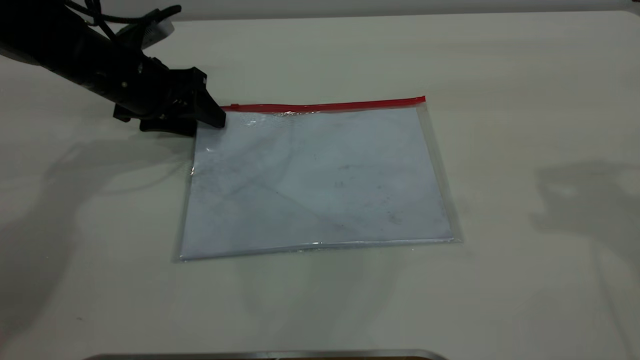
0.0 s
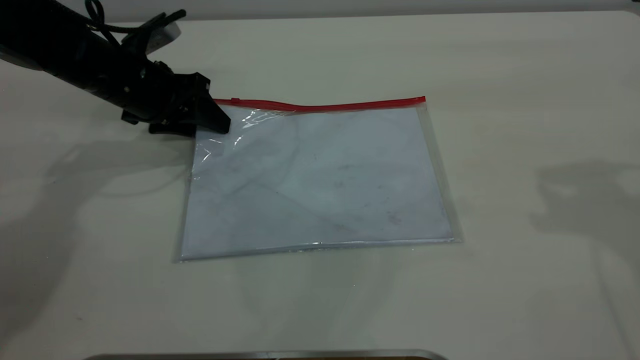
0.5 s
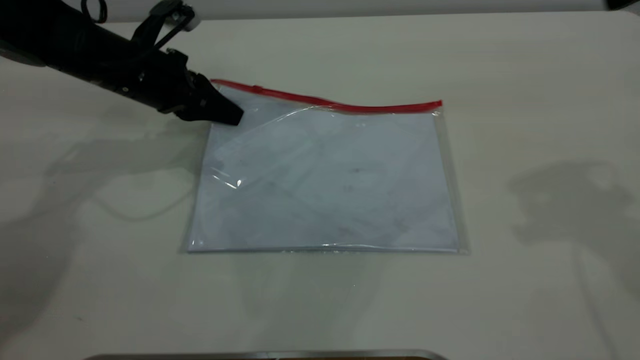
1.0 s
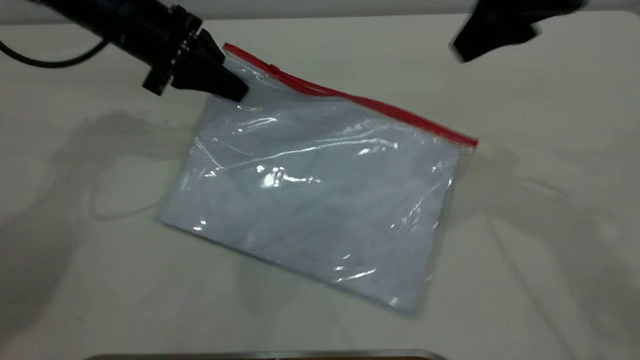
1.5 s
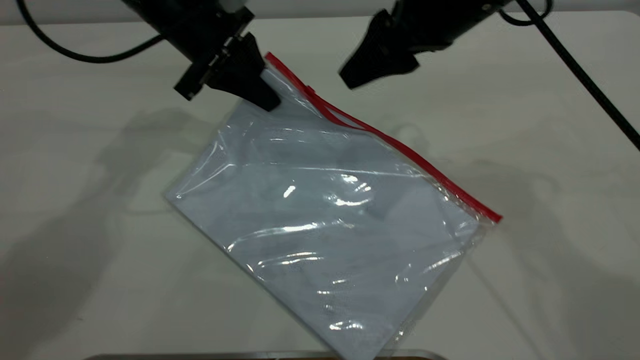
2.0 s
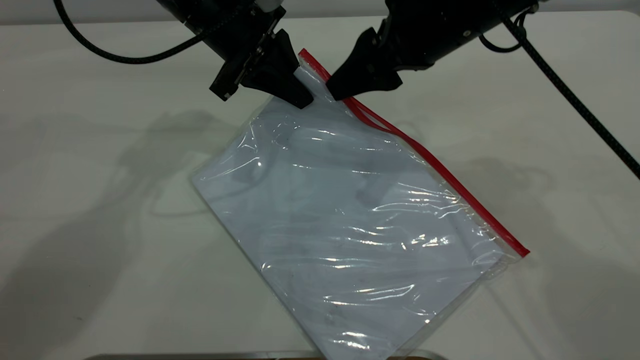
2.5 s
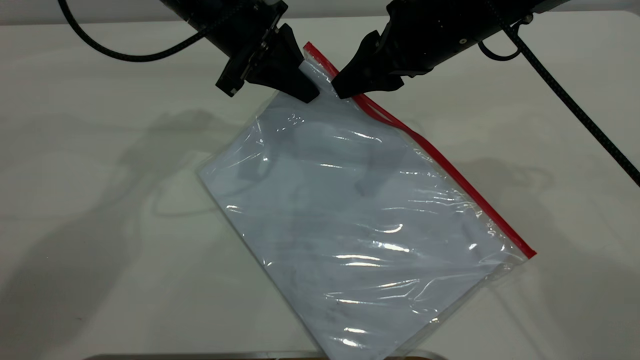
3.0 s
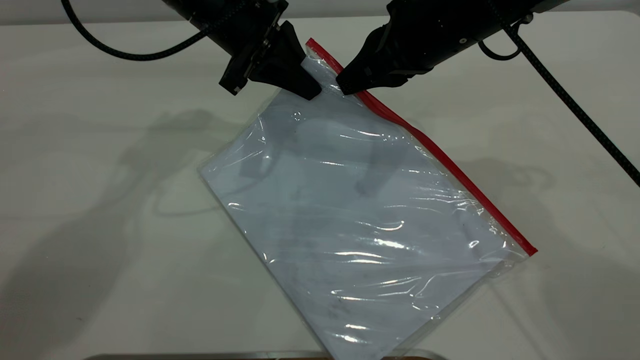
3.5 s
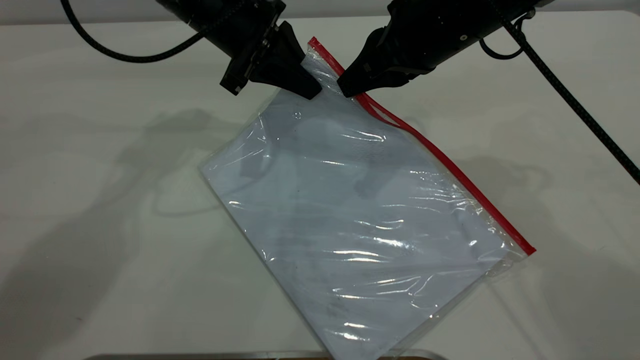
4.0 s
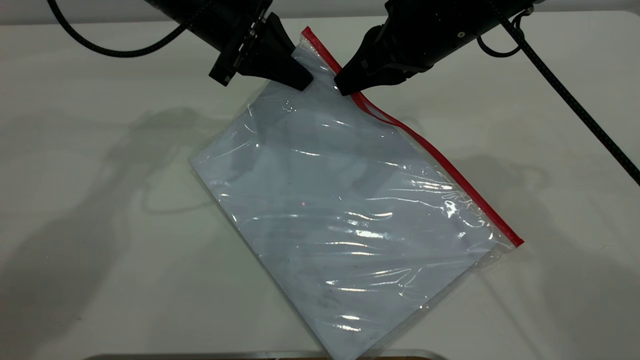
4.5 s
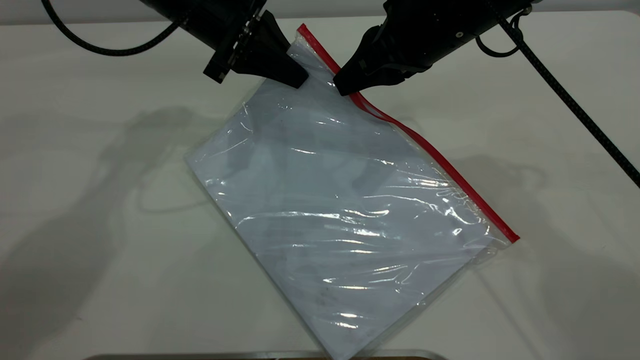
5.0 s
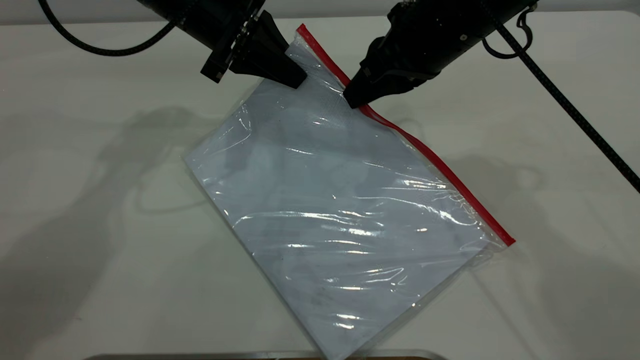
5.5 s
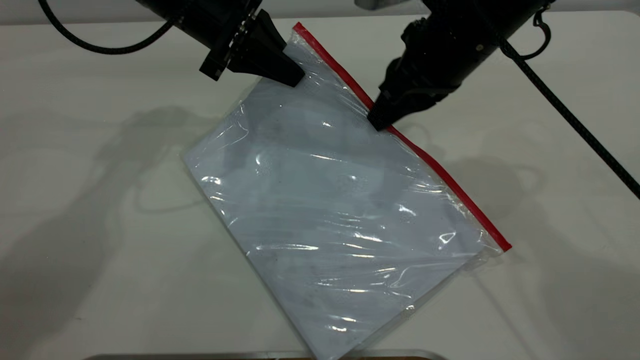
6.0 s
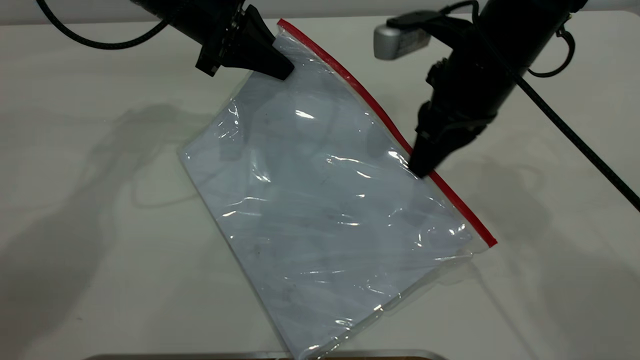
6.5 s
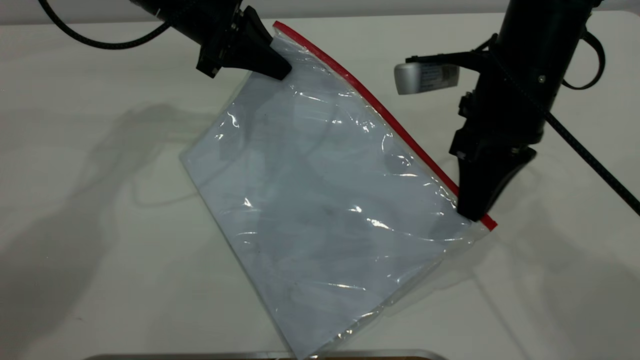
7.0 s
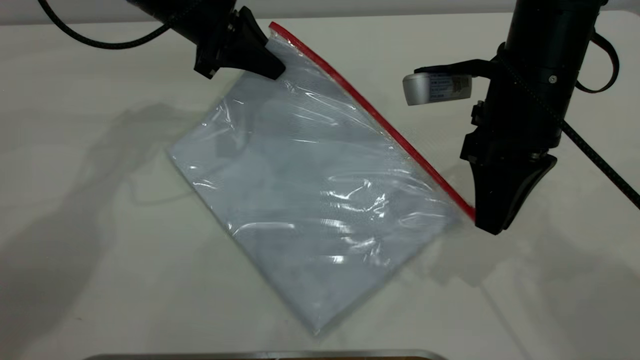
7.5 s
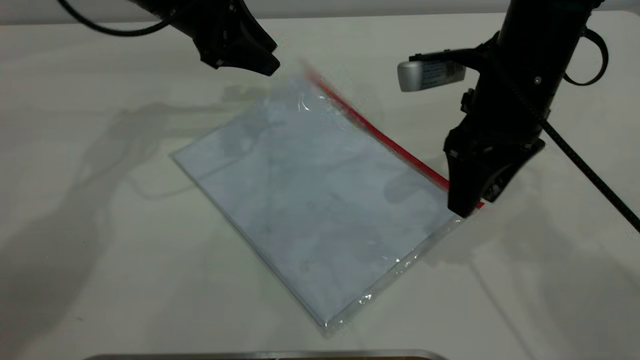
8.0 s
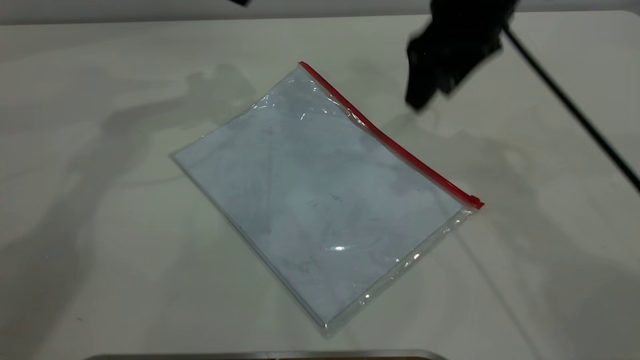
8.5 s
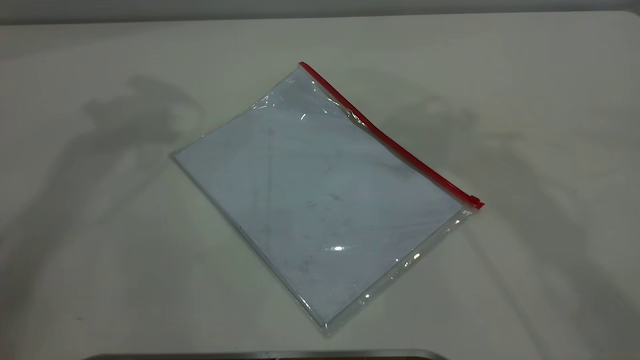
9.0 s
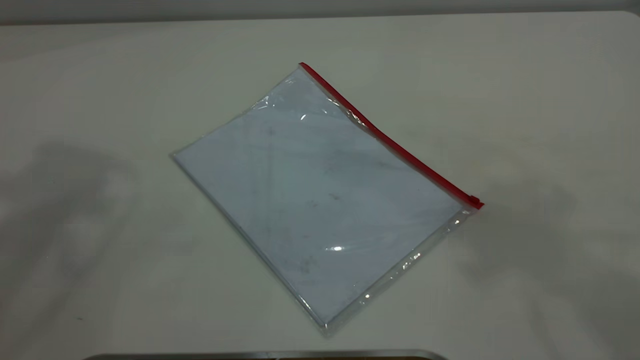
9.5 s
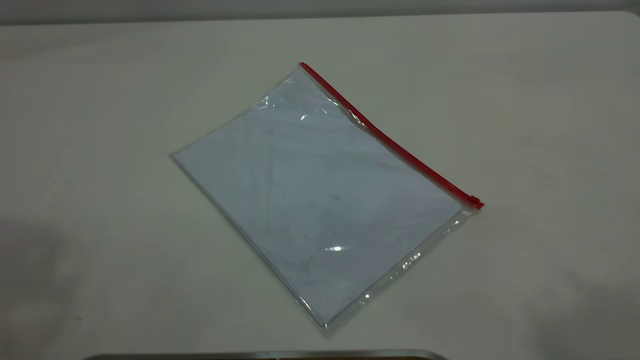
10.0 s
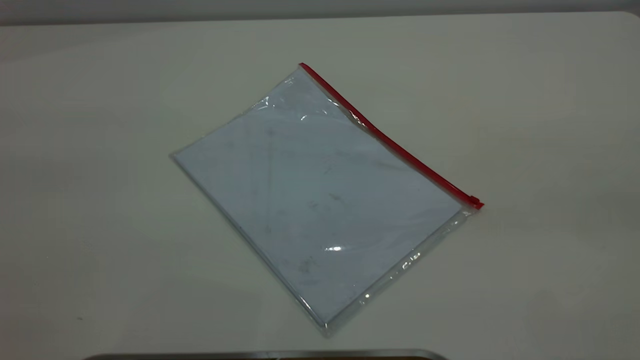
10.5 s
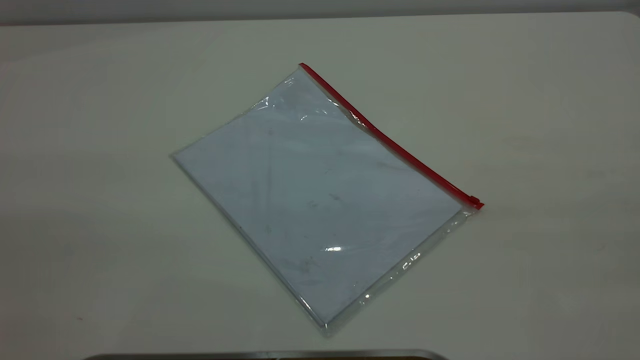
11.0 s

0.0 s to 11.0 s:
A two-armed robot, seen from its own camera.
Step, 1.5 to 7.0 s: Pulling up the zipper on the transparent plastic bag with the right gripper to close it.
Step, 7.5 to 8.0 s: Place the transparent plastic bag.
0.0 to 2.0 s: The left gripper travels to the right and upward by approximately 10 cm, and closes up. Meanwhile the right gripper goes some 20 cm to the left, downward and forward.
2.0 to 3.5 s: The right gripper closes up.
3.5 to 5.5 s: The grippers make only small movements.
5.5 to 7.5 s: The right gripper travels backward by approximately 5 cm.
7.5 to 9.0 s: Both grippers move upward, roughly 30 cm. The left gripper opens up. The right gripper opens up.

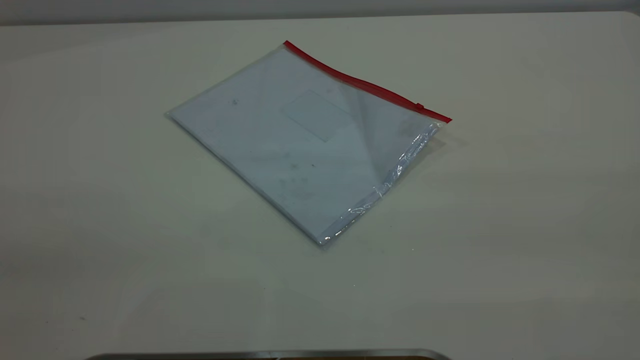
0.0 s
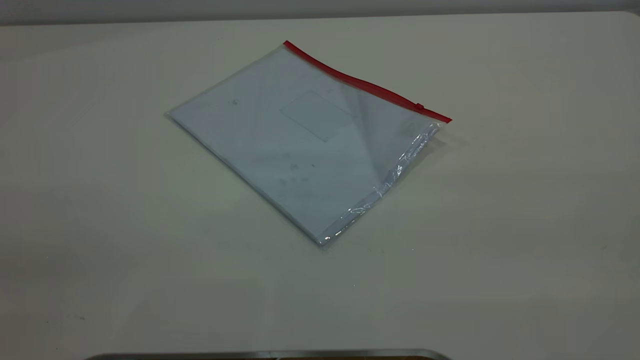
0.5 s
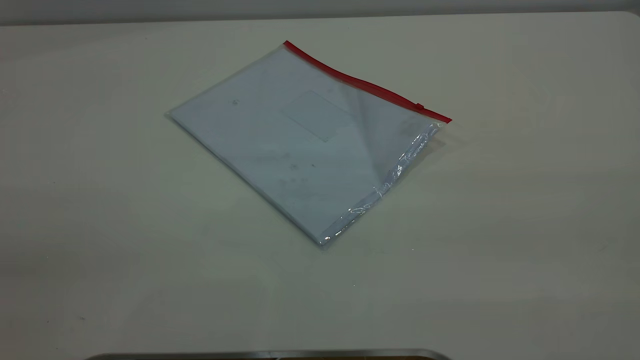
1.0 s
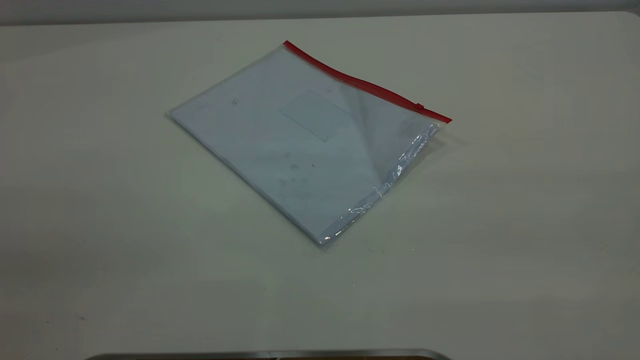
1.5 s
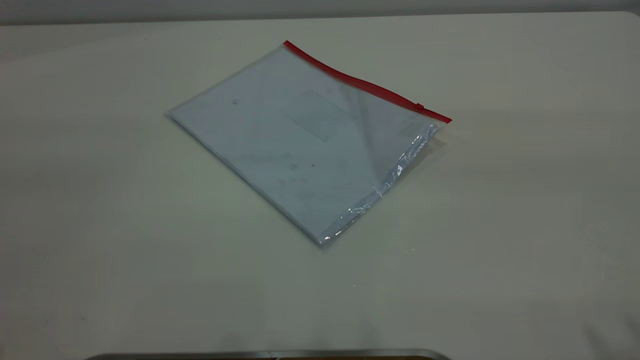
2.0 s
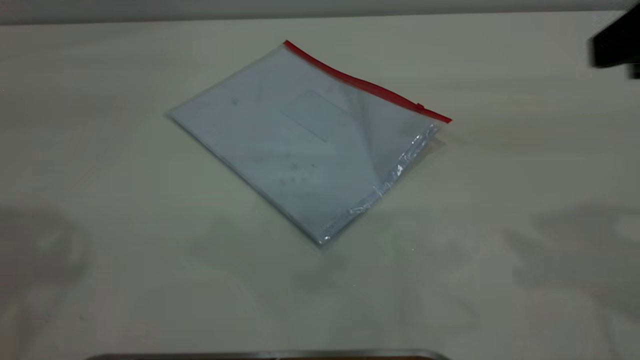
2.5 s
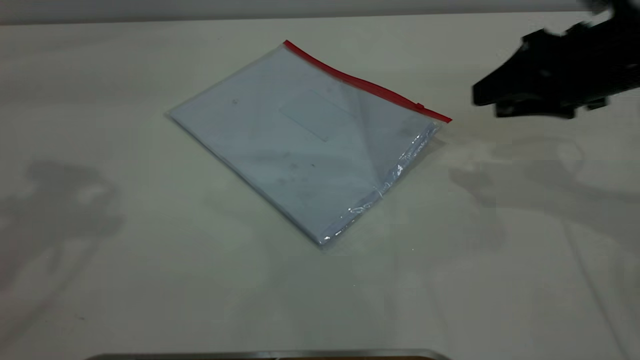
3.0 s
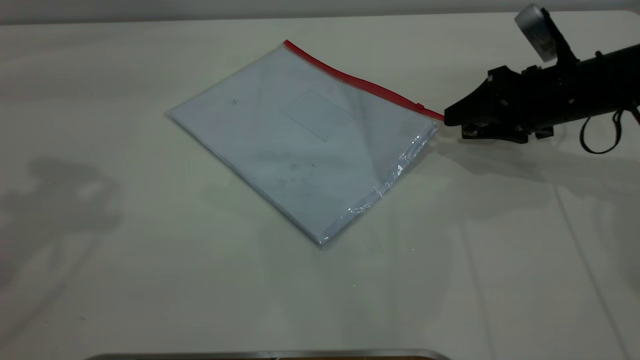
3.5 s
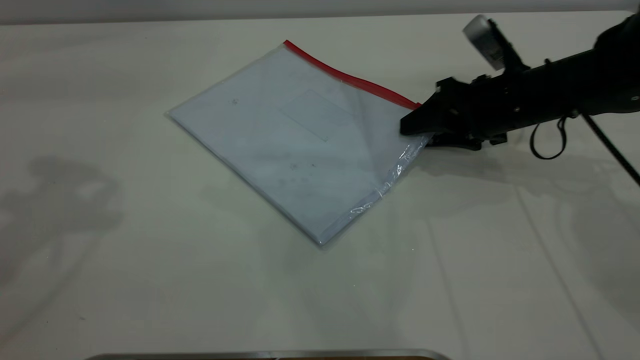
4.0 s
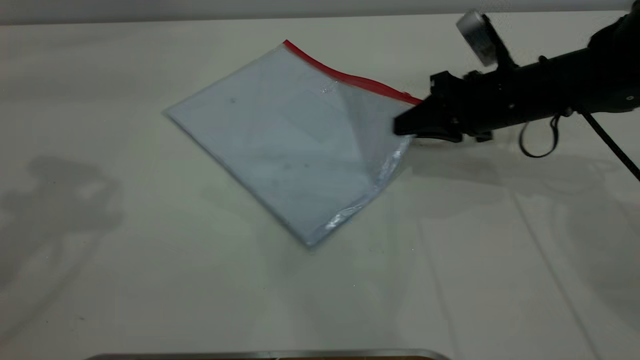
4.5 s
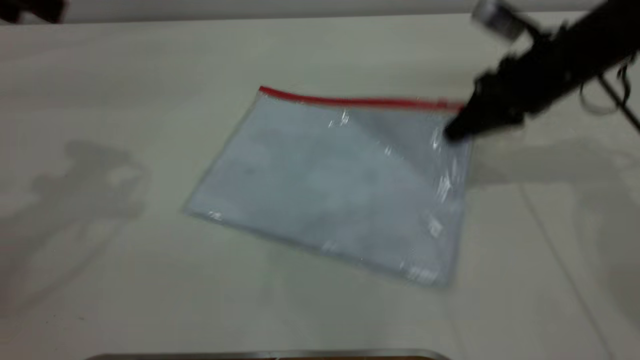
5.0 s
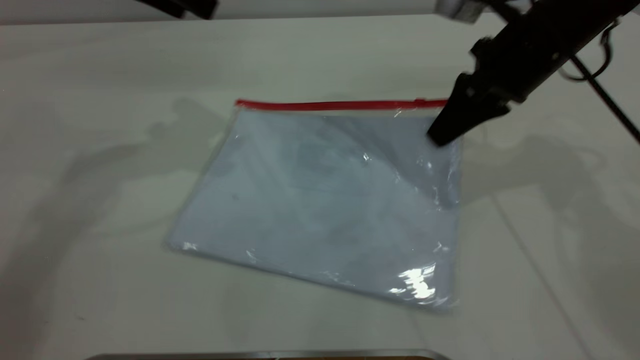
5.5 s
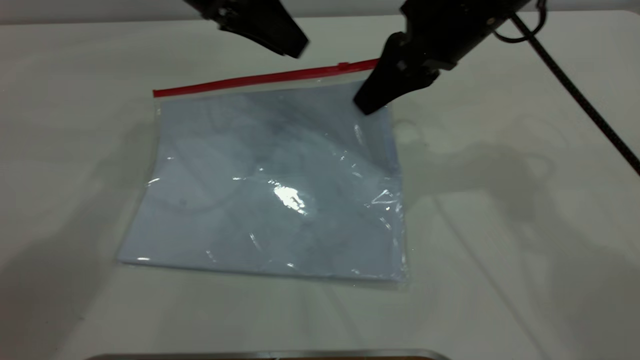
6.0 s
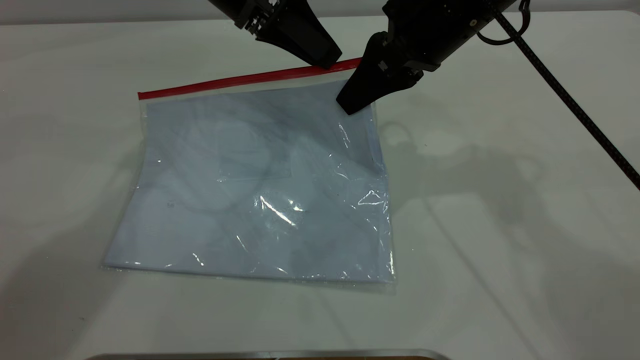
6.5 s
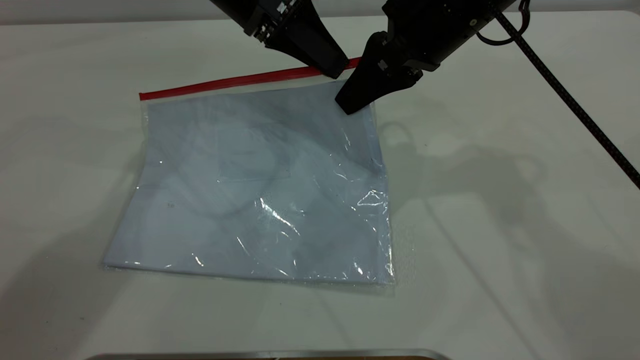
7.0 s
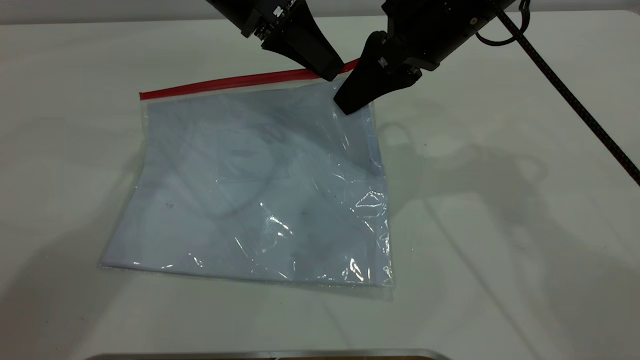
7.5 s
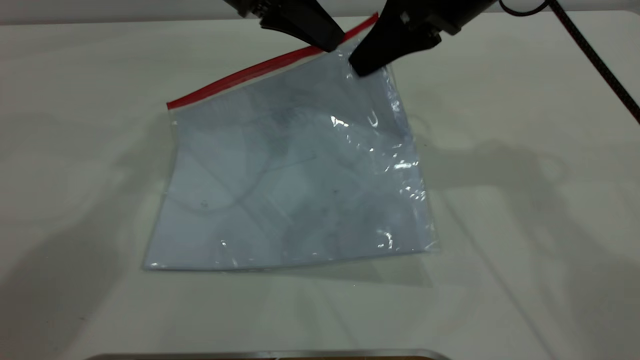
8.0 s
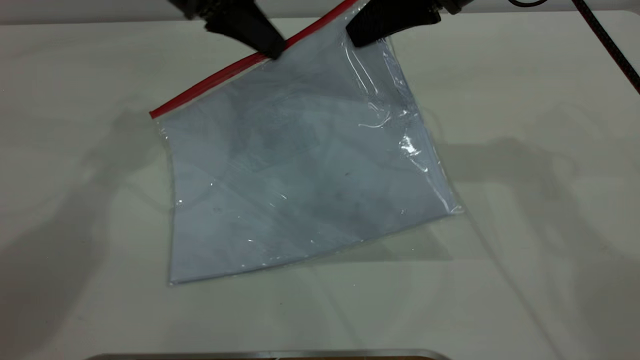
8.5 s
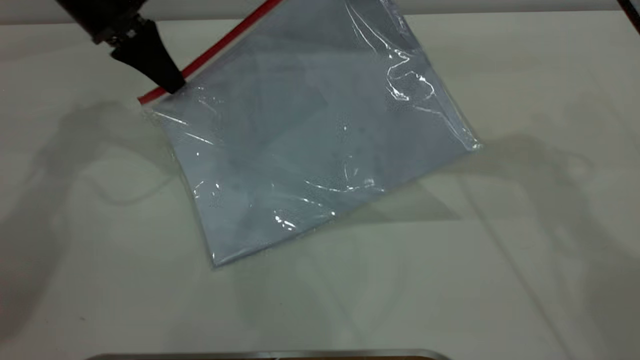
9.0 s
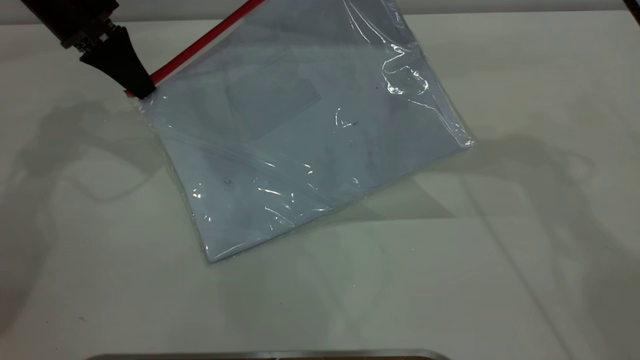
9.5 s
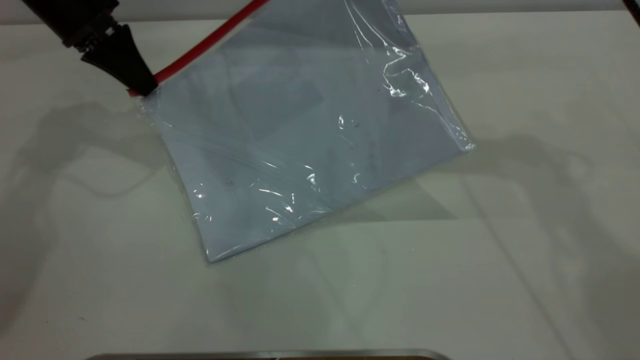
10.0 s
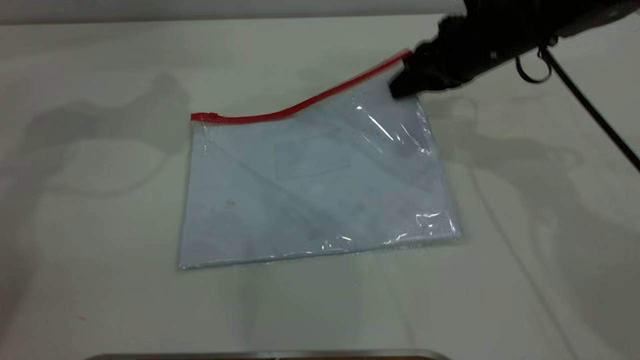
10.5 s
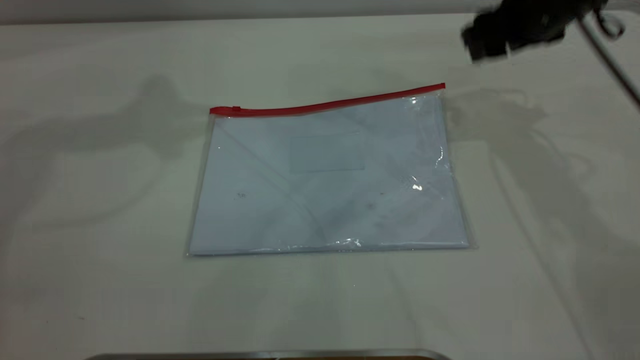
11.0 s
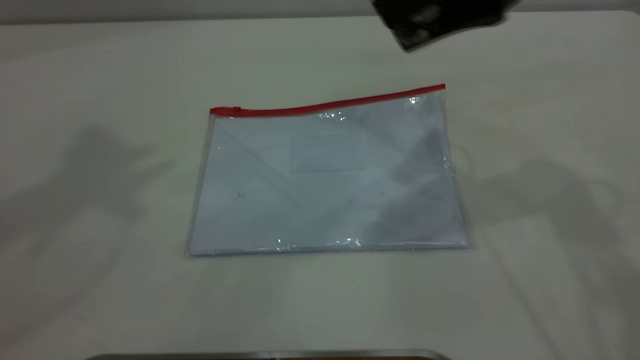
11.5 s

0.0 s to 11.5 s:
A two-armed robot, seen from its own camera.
Step, 0.0 to 5.5 s: Pick up the transparent plastic bag with the right gripper.
Step, 6.0 to 10.0 s: Pulling up the zipper on the transparent plastic bag with the left gripper to close it.
Step, 10.5 to 11.0 s: Place the transparent plastic bag.
2.0 to 4.0 s: The right gripper moves downward and forward, some 40 cm.
4.0 to 6.0 s: The right gripper moves upward and to the left, about 15 cm, and closes its fingers. The left gripper travels to the right, downward and forward by approximately 25 cm.
6.0 to 7.5 s: The left gripper closes up.
7.5 to 9.5 s: The right gripper goes roughly 5 cm upward; the left gripper is displaced to the left by some 20 cm.
9.5 to 11.5 s: The left gripper moves upward, roughly 40 cm, and opens its fingers; the right gripper shifts roughly 5 cm backward, travels downward and back again, roughly 15 cm each way, and opens up.
